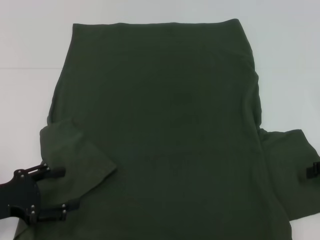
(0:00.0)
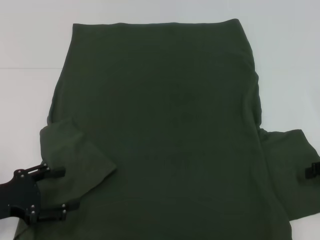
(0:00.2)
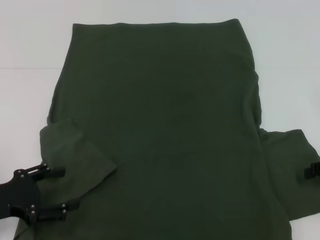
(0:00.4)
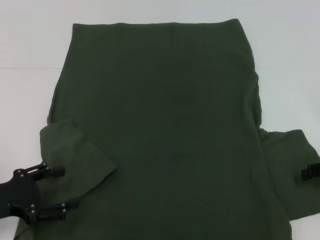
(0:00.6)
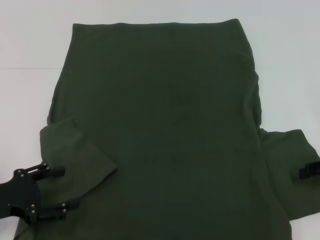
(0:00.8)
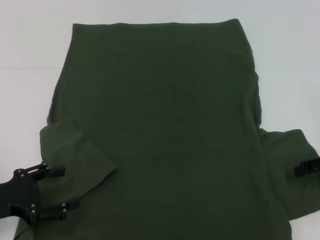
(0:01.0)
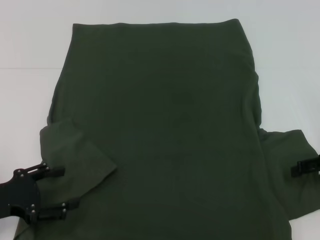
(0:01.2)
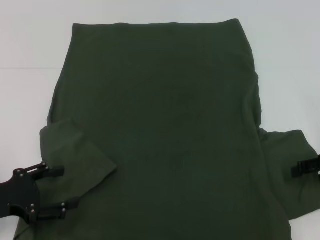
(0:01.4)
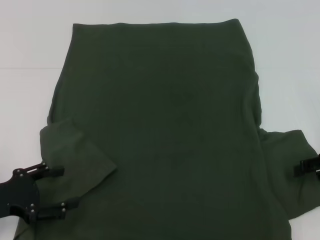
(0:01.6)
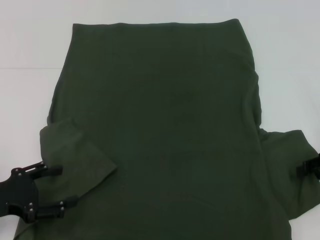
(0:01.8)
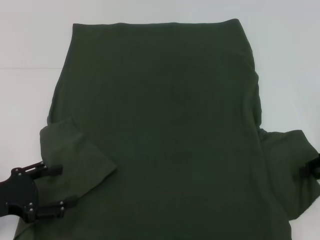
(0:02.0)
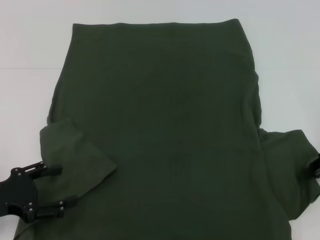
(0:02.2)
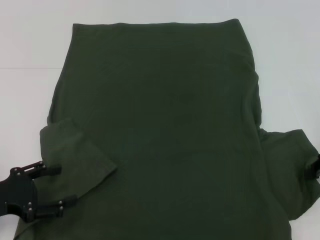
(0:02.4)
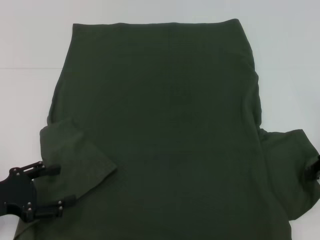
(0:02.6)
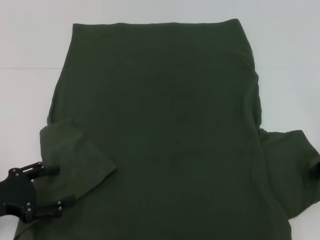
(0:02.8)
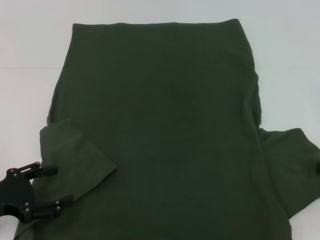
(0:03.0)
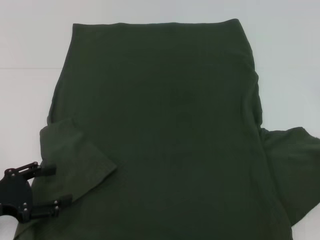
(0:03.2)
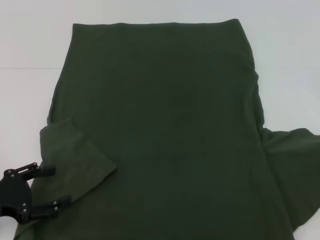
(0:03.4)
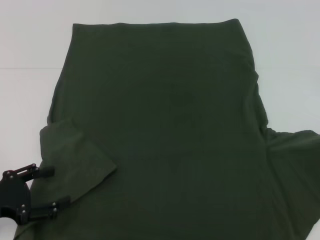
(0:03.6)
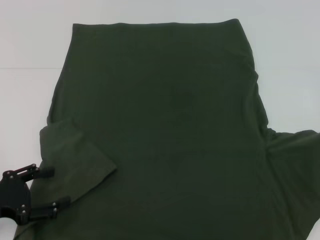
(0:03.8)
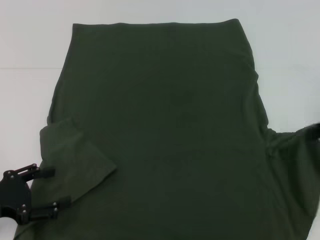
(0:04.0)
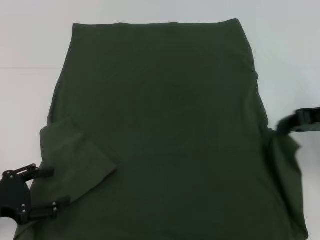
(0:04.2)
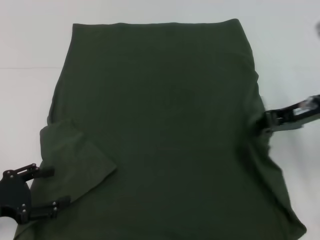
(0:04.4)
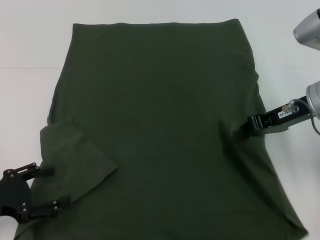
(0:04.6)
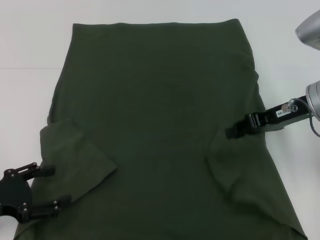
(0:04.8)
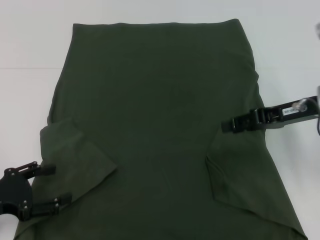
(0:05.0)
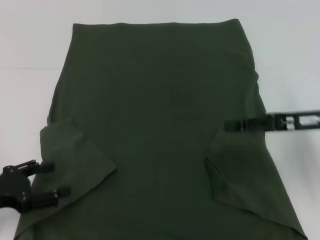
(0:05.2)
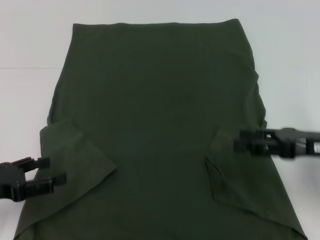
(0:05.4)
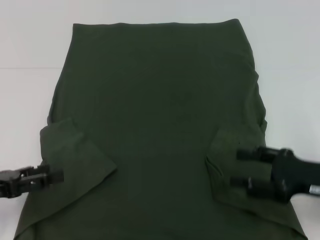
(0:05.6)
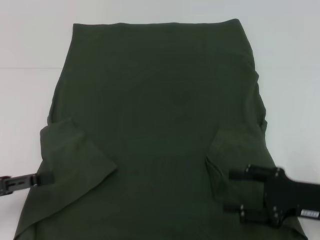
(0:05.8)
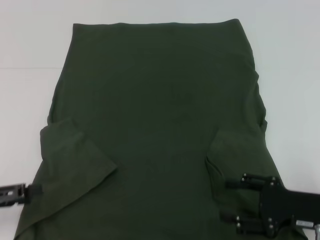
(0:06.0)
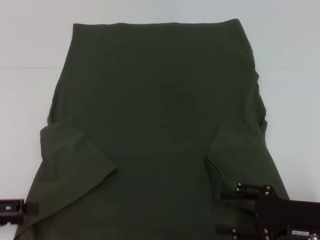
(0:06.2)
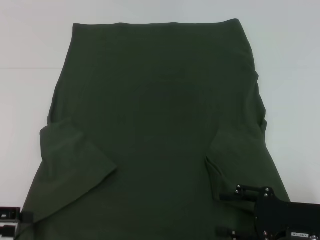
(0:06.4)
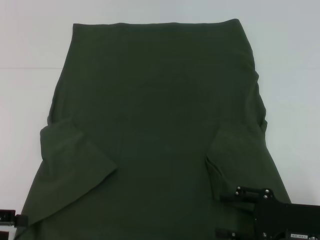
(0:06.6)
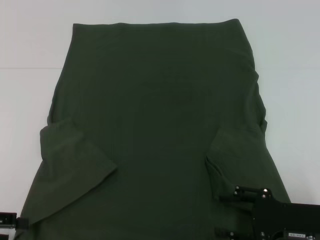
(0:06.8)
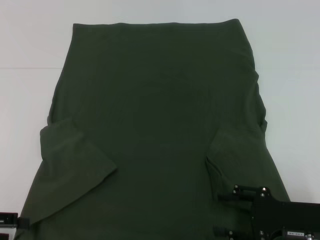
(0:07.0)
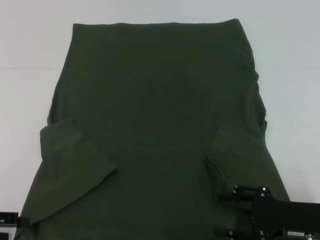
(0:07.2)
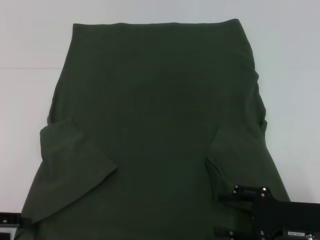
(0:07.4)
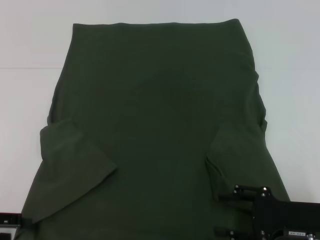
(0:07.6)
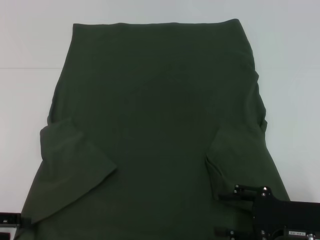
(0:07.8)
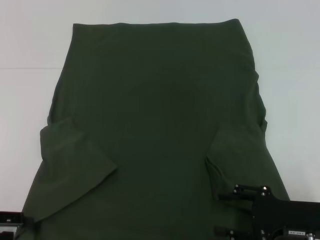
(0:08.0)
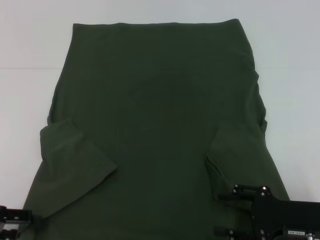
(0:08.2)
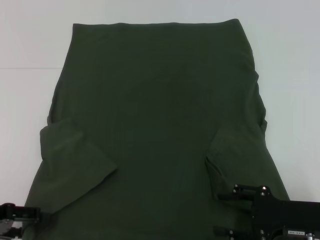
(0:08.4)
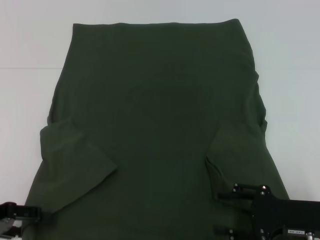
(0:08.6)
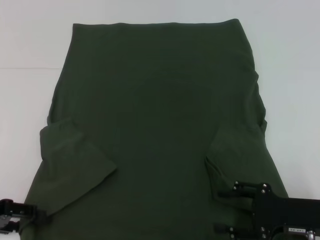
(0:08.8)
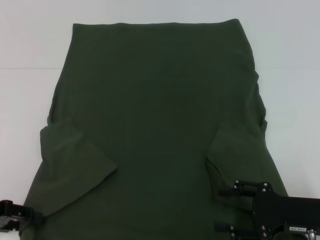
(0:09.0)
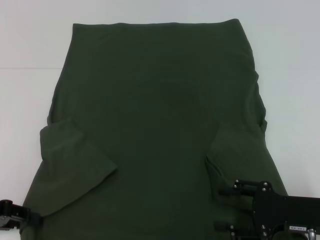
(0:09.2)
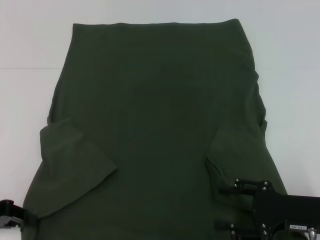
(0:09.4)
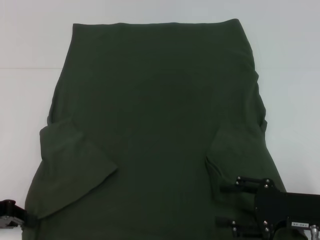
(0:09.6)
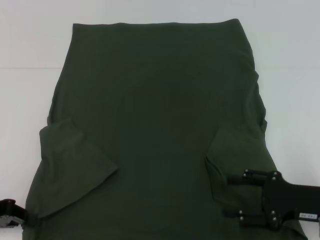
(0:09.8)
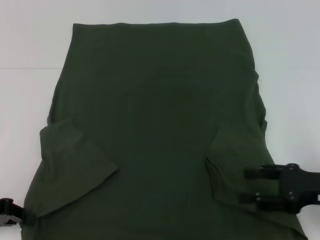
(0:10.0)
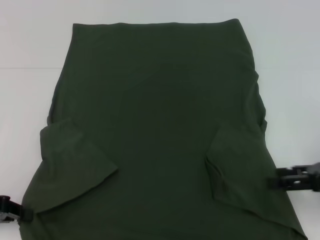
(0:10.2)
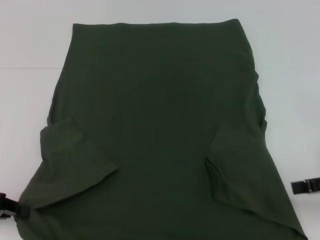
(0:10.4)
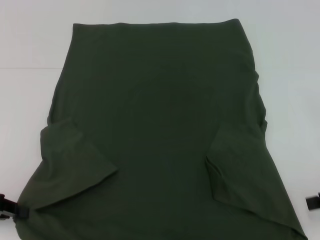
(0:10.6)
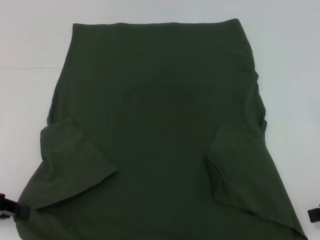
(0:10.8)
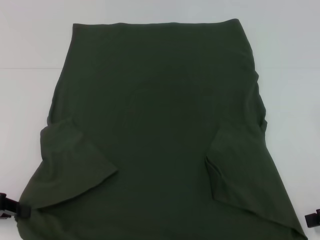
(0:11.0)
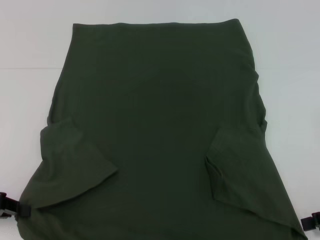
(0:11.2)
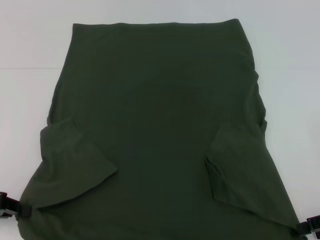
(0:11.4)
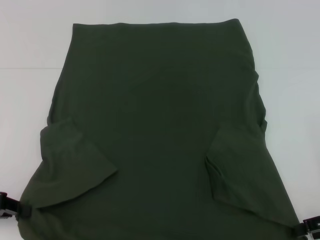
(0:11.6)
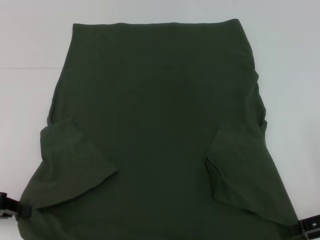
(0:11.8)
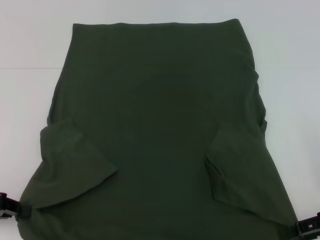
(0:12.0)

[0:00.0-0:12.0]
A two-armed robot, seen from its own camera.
Step, 0:00.0 to 0:05.0: Fold the bottom right sleeve with your right hand.
Step, 0:05.2 to 0:09.8: Grab the bottom left corner with your left hand.
0:00.0 to 0:01.6: There are only small adjustments of the grippers.
0:01.6 to 0:03.0: The right gripper closes.
0:03.0 to 0:04.4: The right gripper goes approximately 10 cm to the left.
0:04.4 to 0:06.0: The right gripper travels backward and downward by about 20 cm, and opens.
0:07.6 to 0:09.0: The grippers stay close to where they were, moving slightly.
0:09.0 to 0:10.4: The left gripper closes. Meanwhile the right gripper travels upward and to the right by roughly 15 cm.
0:10.4 to 0:12.0: The right gripper goes approximately 5 cm downward.

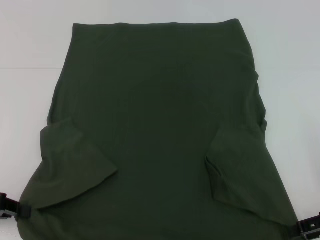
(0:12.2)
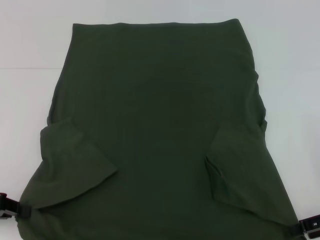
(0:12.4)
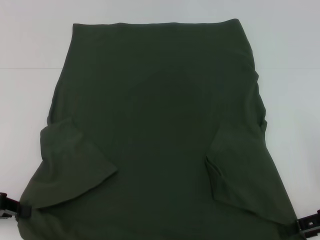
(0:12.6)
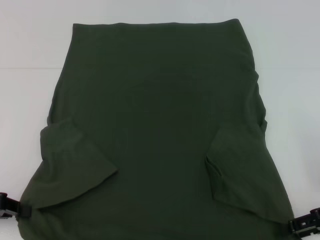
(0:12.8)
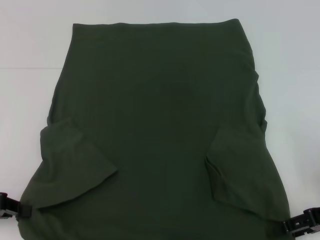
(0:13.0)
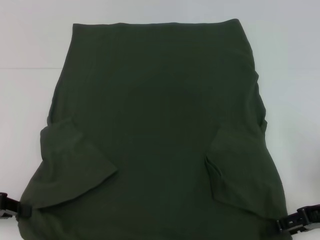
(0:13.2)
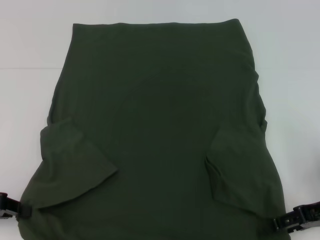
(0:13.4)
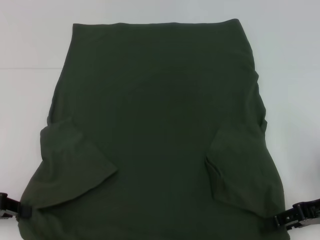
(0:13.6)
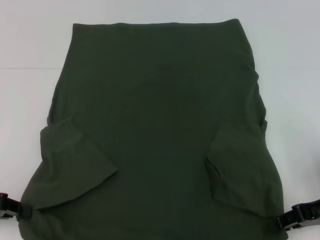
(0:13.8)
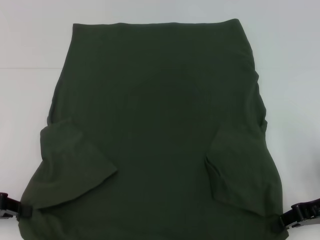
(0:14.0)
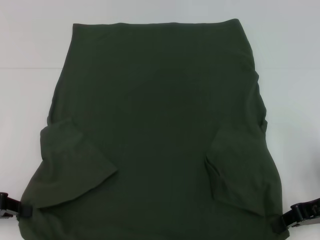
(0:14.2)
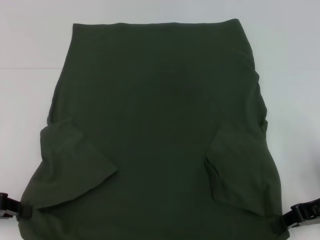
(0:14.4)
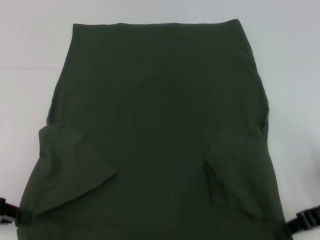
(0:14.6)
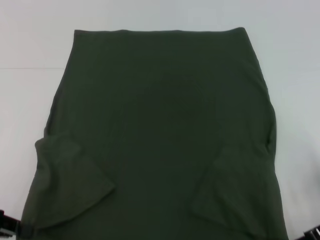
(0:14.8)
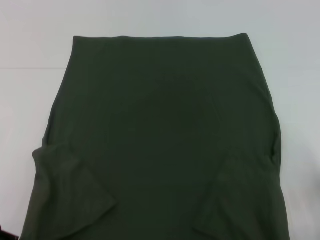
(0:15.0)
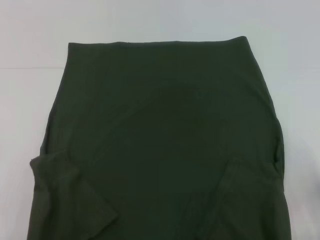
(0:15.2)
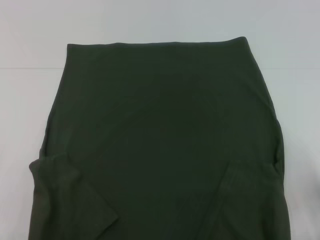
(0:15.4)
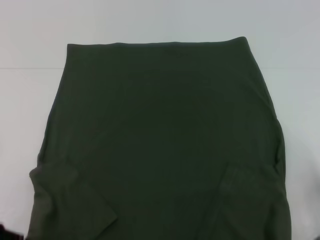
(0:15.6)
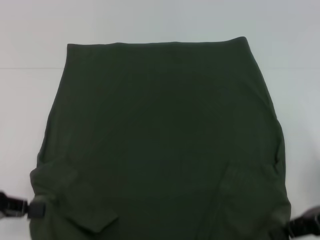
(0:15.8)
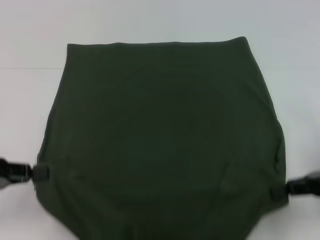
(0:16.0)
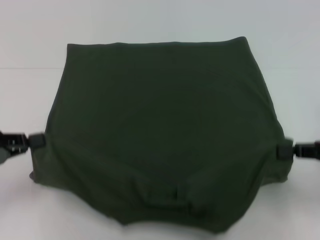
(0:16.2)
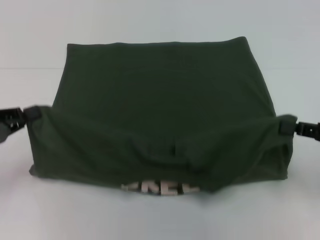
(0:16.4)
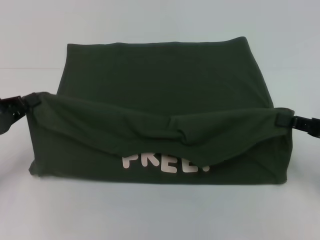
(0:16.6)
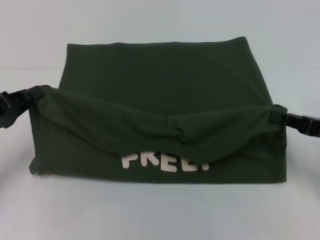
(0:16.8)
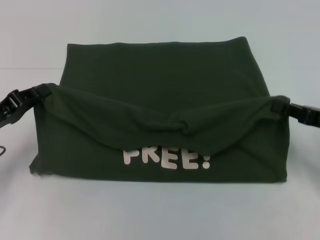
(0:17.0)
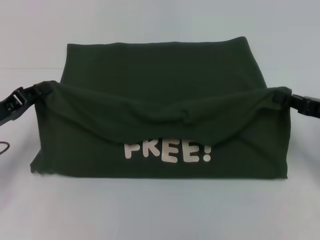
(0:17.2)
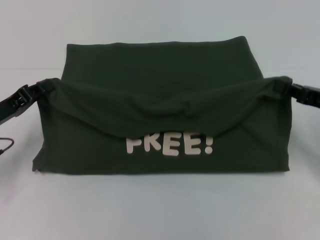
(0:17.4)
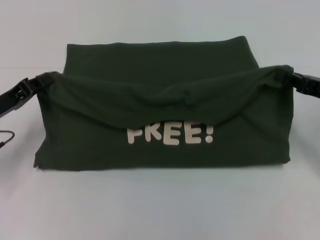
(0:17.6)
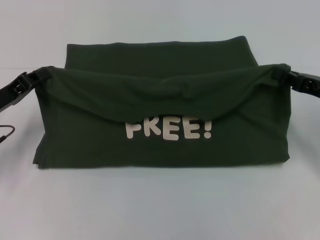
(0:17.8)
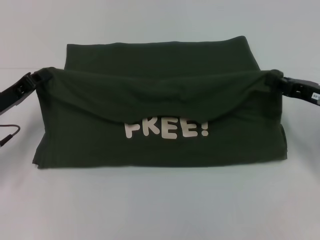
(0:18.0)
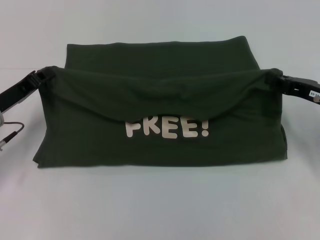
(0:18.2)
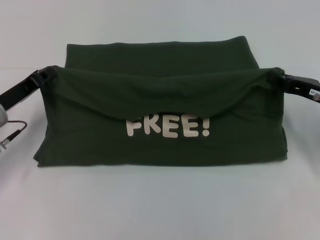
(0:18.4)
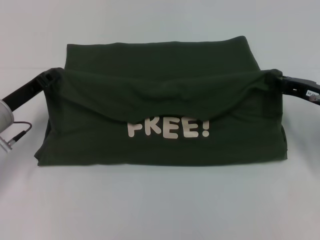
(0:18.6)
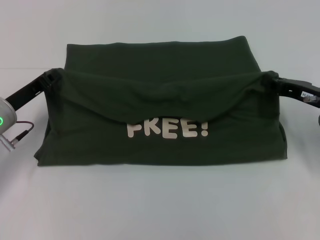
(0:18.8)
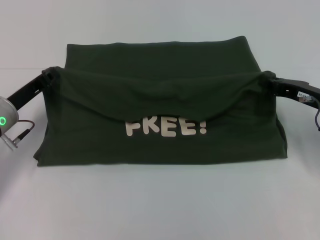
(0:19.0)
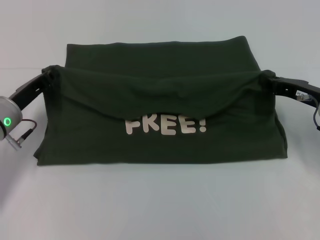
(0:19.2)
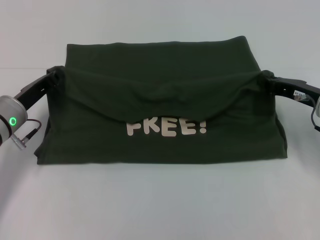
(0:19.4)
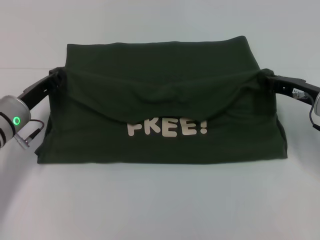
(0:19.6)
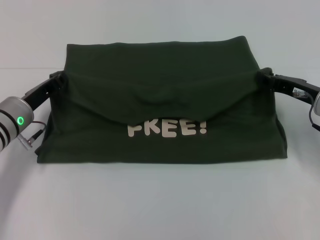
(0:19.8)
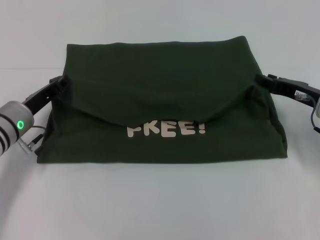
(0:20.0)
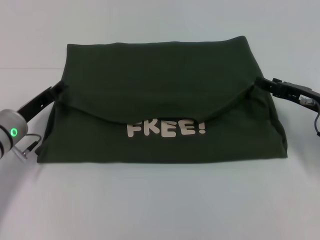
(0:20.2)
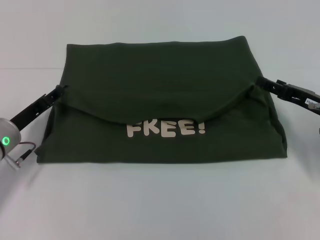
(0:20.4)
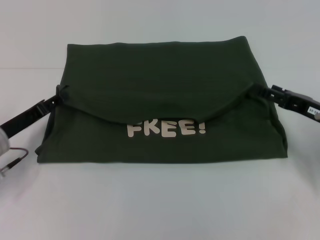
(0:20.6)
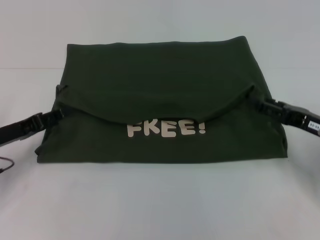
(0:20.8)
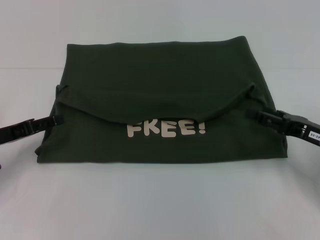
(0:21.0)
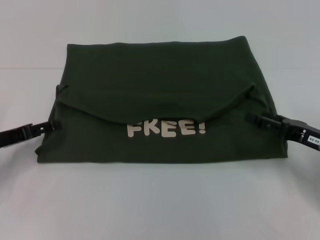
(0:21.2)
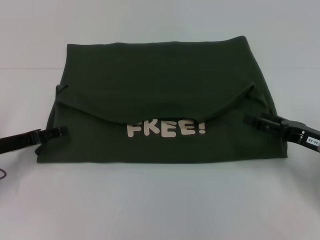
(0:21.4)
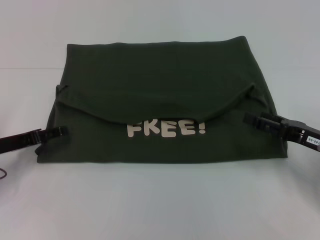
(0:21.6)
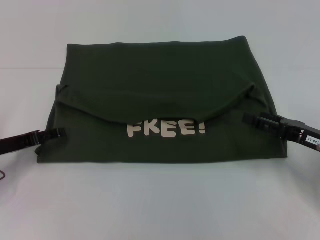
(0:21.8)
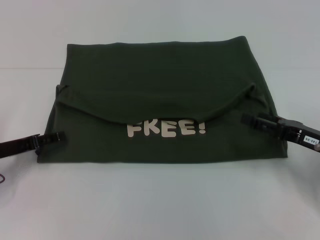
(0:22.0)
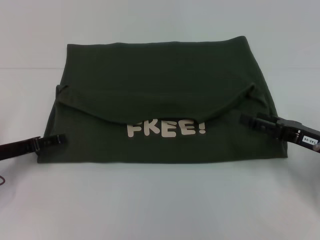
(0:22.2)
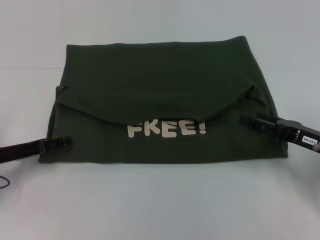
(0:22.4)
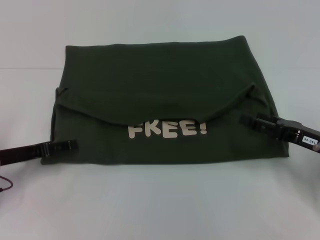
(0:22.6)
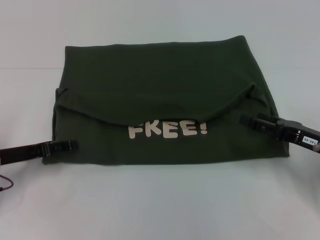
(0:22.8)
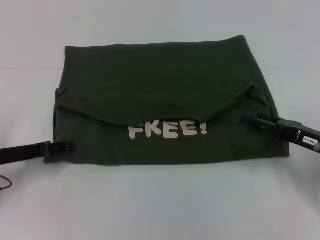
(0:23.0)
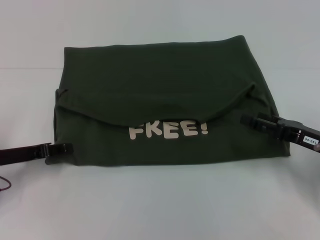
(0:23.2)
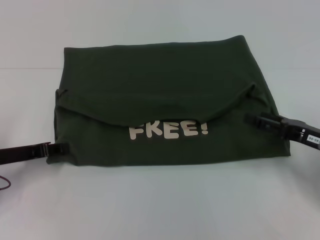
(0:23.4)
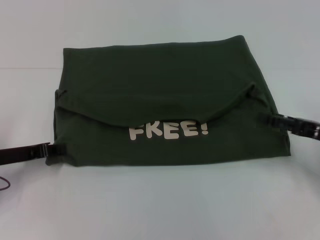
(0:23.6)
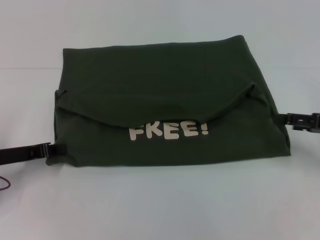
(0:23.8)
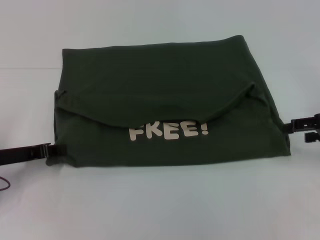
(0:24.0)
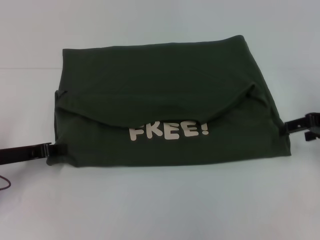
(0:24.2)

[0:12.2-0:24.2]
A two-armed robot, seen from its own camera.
Step, 0:14.4 to 0:20.2: Fold the clothes with your left hand.
Step, 0:14.4 to 0:20.2: Fold the clothes with your right hand.
0:12.2 to 0:13.8: The grippers stay close to where they were, moving slightly.
0:13.8 to 0:15.2: The right gripper closes.
0:15.2 to 0:16.6: The right gripper moves approximately 5 cm, while the left gripper is displaced forward by approximately 5 cm.
0:16.6 to 0:18.2: The grippers both shift forward by some 5 cm.
0:18.2 to 0:19.8: The left gripper changes place by some 5 cm.
0:19.8 to 0:21.2: The left gripper travels to the left and backward by some 10 cm, and opens up. Meanwhile the right gripper moves backward, some 10 cm, and opens up.
0:21.2 to 0:22.6: The grippers move only a little.
0:22.6 to 0:24.2: The left gripper closes its fingers; the right gripper heads upward and forward, covering approximately 10 cm.
